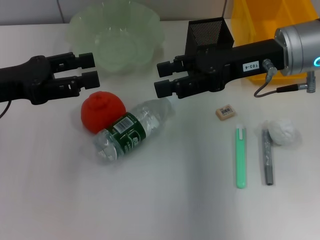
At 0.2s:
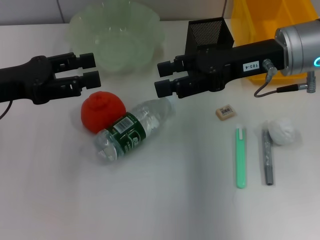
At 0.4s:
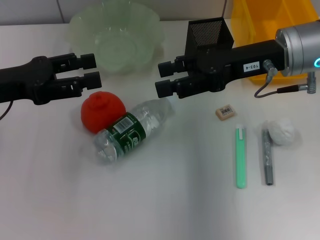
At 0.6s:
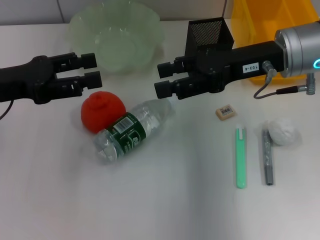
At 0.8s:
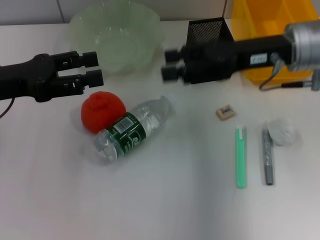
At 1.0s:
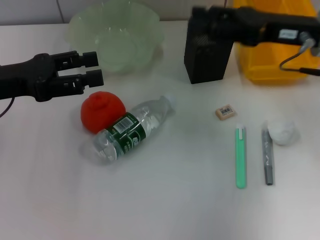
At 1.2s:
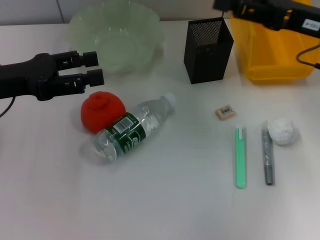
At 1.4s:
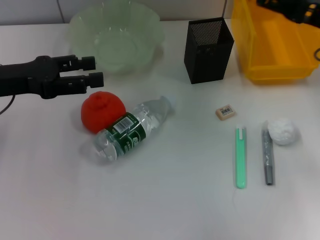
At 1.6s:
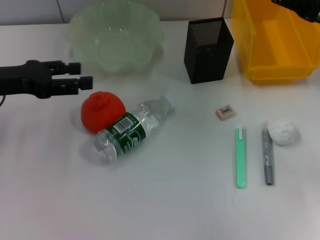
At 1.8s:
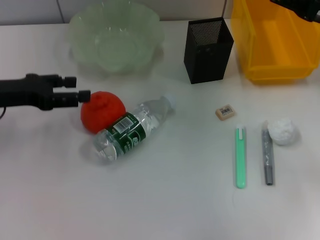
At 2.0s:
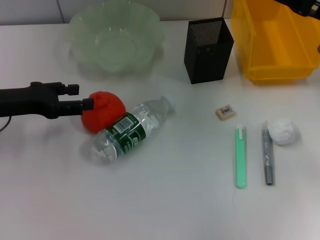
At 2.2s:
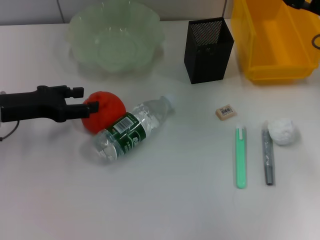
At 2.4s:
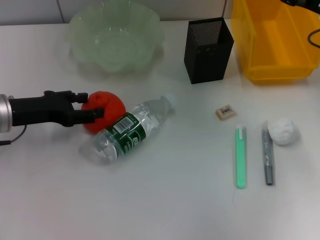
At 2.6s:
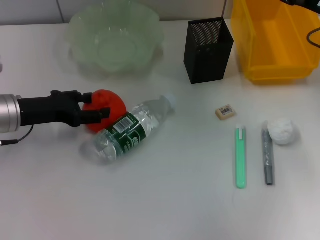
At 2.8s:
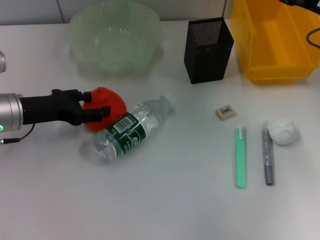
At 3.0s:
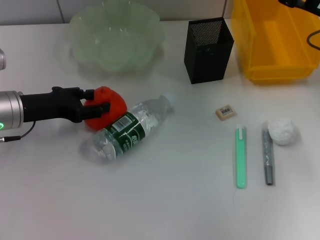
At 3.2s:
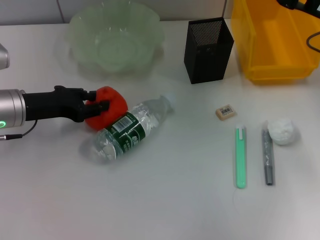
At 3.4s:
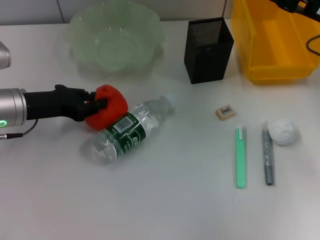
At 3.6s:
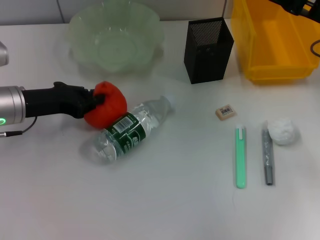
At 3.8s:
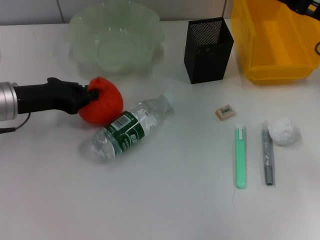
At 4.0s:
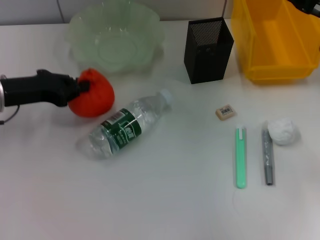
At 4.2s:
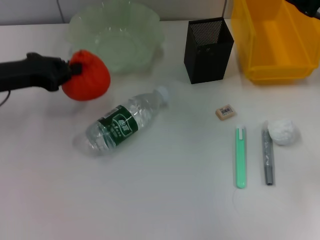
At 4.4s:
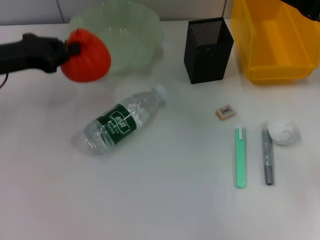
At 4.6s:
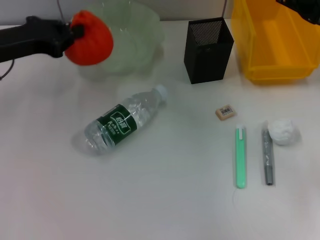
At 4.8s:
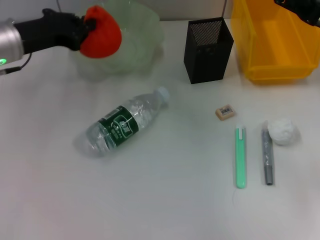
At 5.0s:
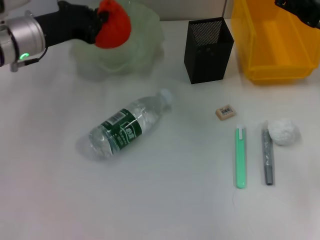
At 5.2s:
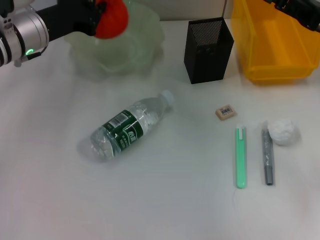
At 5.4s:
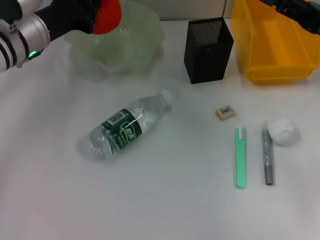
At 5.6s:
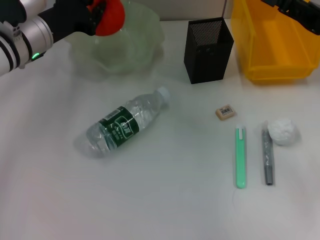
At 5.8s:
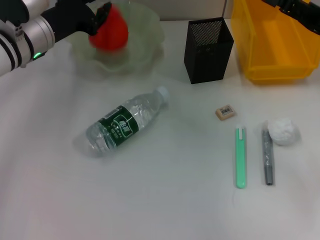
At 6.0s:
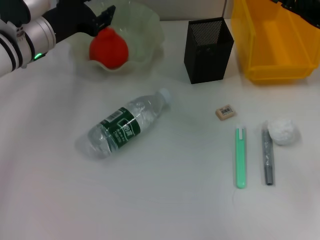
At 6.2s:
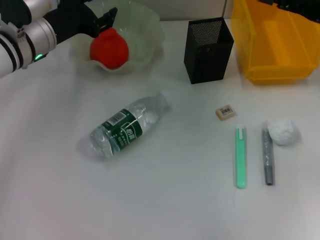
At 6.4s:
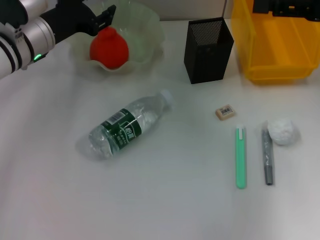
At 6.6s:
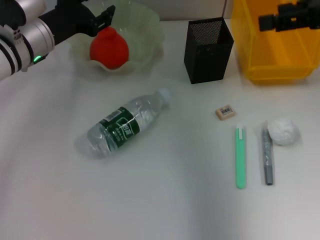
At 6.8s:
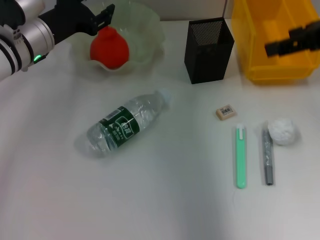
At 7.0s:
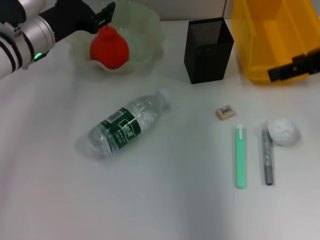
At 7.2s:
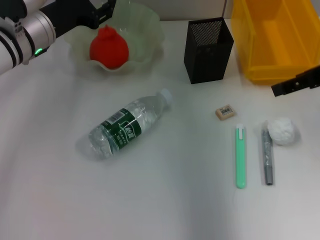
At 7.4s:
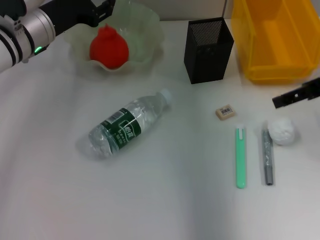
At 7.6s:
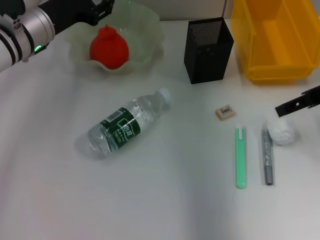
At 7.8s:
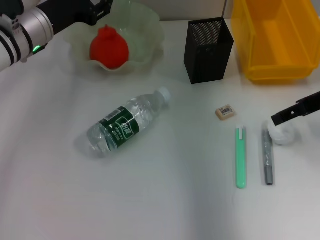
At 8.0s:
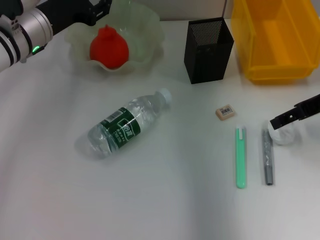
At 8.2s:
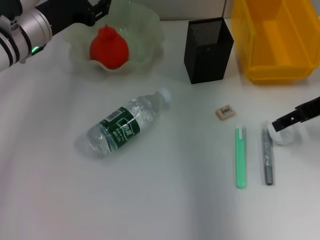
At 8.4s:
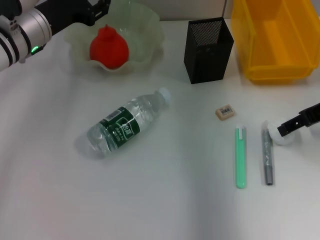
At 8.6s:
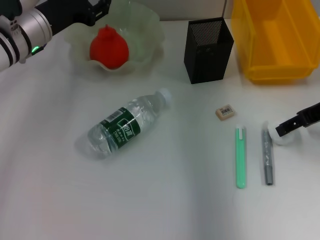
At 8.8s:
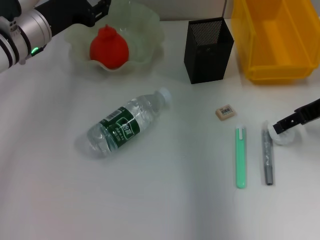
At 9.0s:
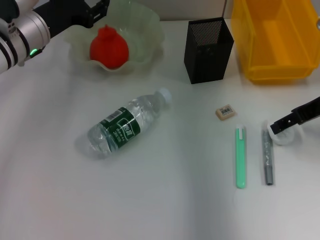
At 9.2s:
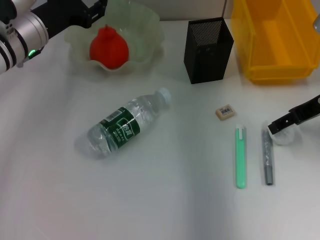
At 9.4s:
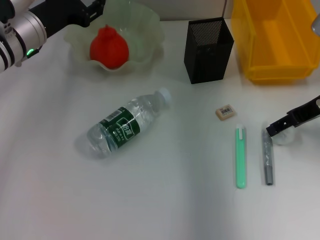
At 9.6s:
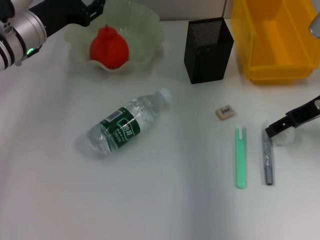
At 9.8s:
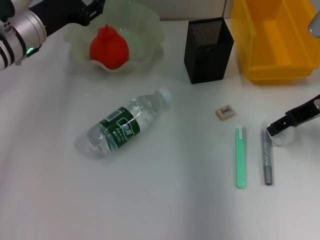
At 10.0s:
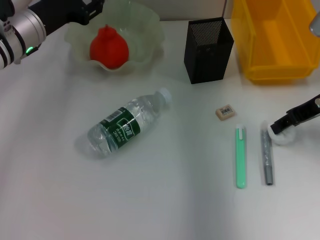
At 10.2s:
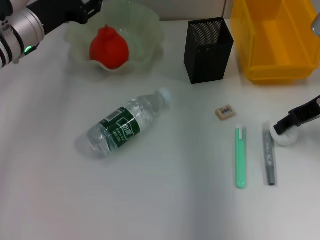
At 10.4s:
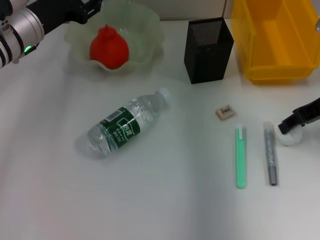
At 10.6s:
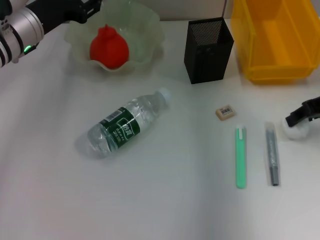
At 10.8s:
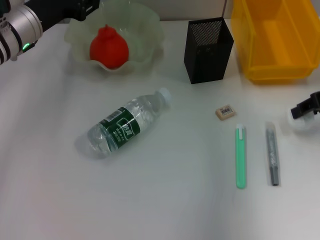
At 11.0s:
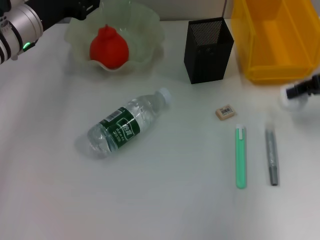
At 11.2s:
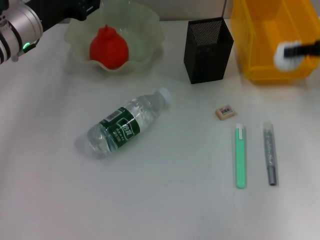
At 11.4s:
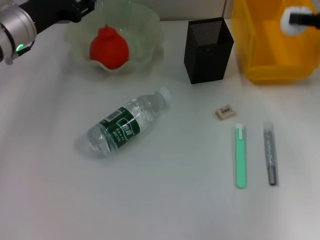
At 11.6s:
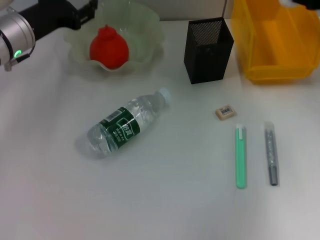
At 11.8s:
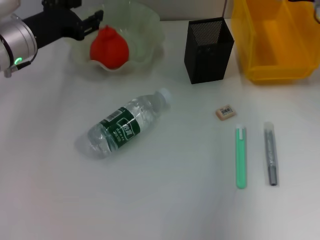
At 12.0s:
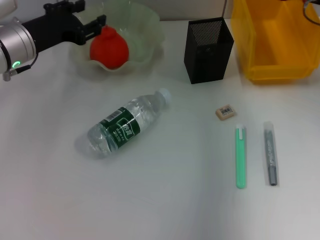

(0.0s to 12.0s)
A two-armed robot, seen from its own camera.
Step, 0.0s - 3.4s: Grab the orange with the left hand.
Step, 3.8s - 5.8s: Place the orange into the fruit bowl with the left hand.
Step, 6.0s - 10.4s: Grab the paper ball with the right hand.
0.0s - 1.6s: The right gripper travels to the right by some 10 cm.
1.6s - 3.0s: The left gripper is displaced downward by some 5 cm.
3.0s - 4.4s: The left gripper shifts some 5 cm upward, and closes.
4.4s - 6.0s: The left gripper is displaced to the right and forward by approximately 10 cm, and opens its fingers.
6.0s - 7.6s: The right gripper travels upward and back again, some 10 cm each way; the left gripper opens its fingers.
7.6s - 9.0s: The grippers stay close to where they were, moving slightly.
9.0s - 10.4s: The right gripper closes its fingers.
10.4s - 12.0s: The right gripper shifts approximately 10 cm forward.

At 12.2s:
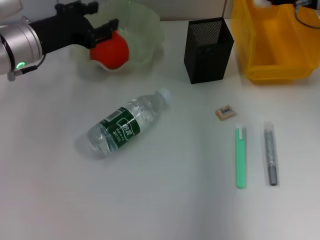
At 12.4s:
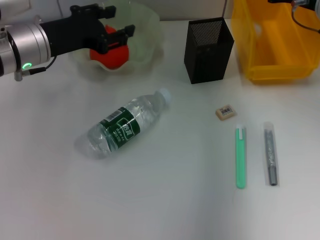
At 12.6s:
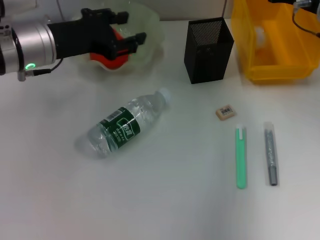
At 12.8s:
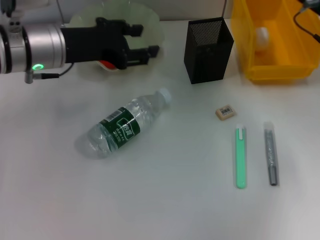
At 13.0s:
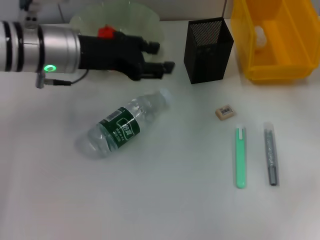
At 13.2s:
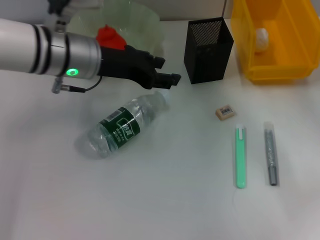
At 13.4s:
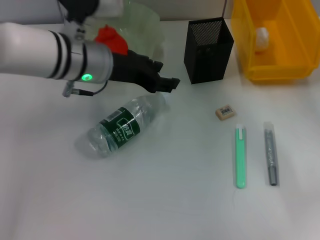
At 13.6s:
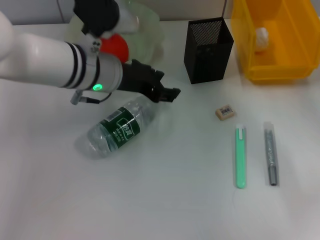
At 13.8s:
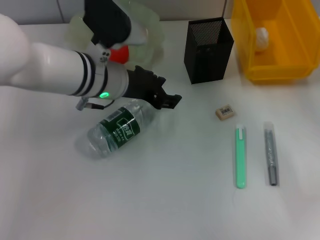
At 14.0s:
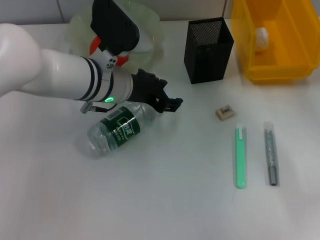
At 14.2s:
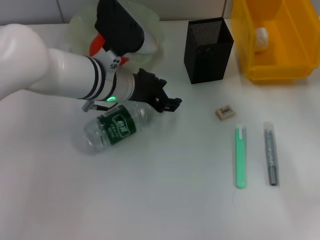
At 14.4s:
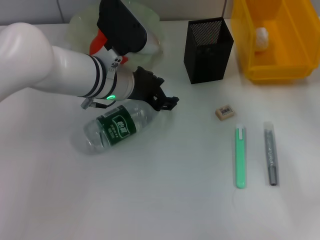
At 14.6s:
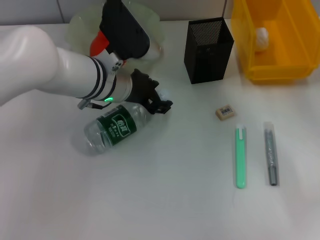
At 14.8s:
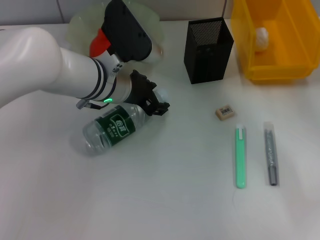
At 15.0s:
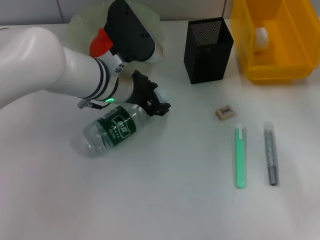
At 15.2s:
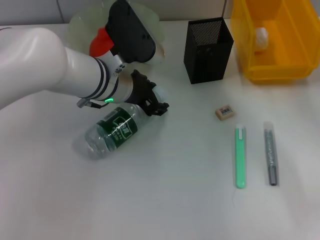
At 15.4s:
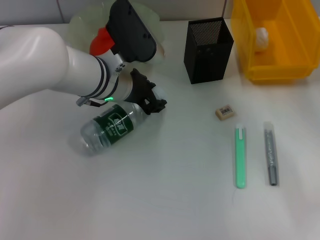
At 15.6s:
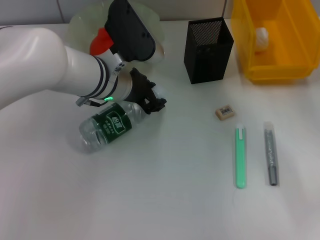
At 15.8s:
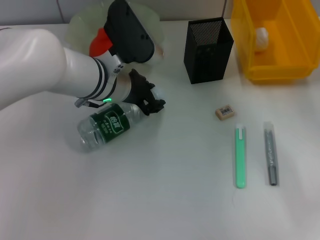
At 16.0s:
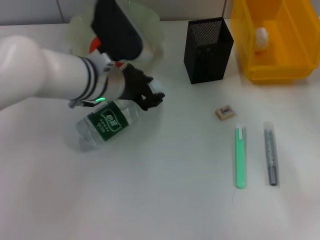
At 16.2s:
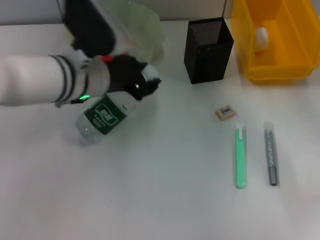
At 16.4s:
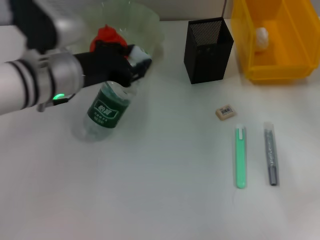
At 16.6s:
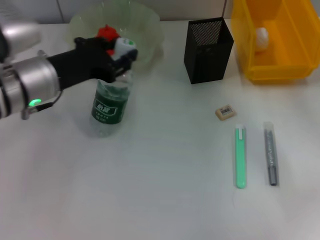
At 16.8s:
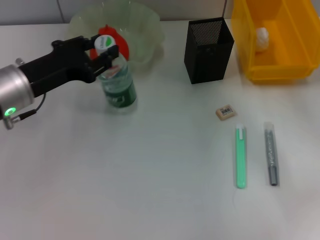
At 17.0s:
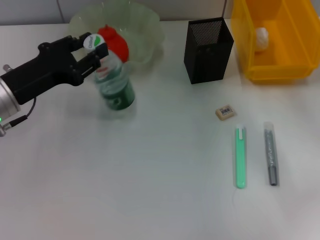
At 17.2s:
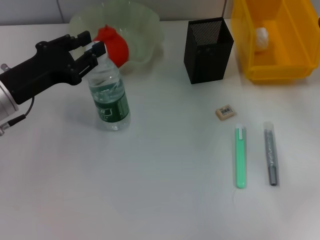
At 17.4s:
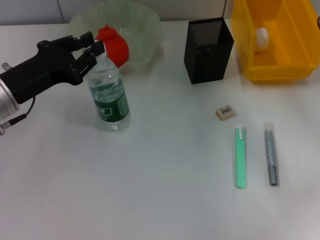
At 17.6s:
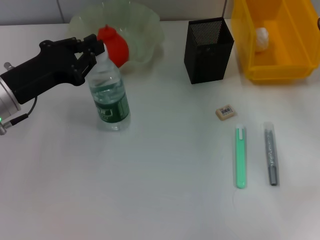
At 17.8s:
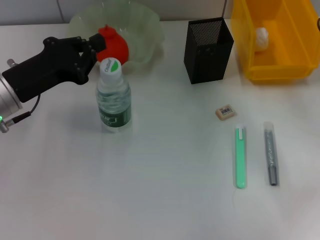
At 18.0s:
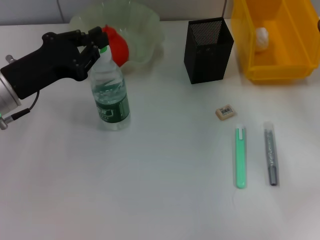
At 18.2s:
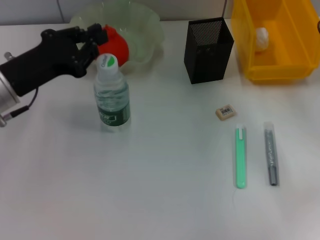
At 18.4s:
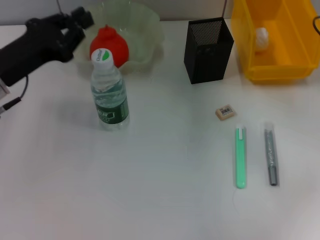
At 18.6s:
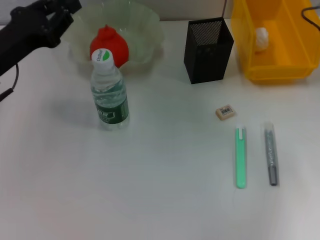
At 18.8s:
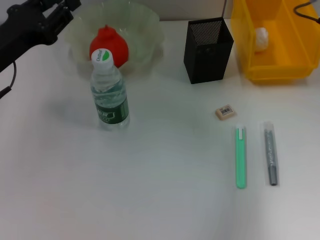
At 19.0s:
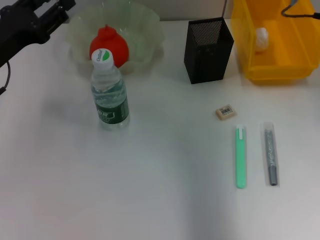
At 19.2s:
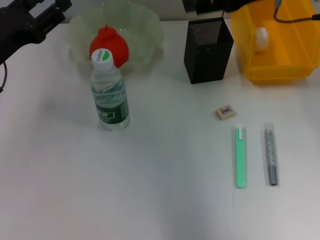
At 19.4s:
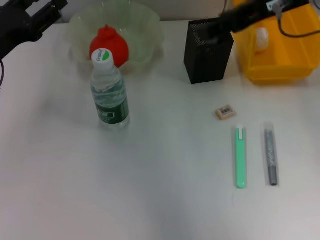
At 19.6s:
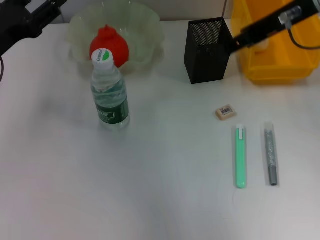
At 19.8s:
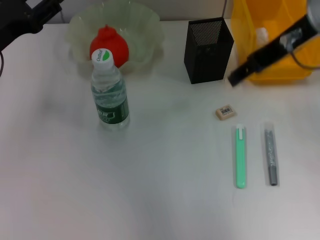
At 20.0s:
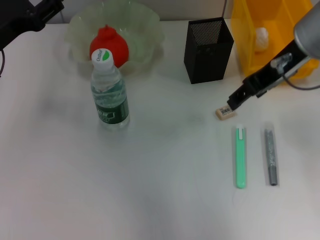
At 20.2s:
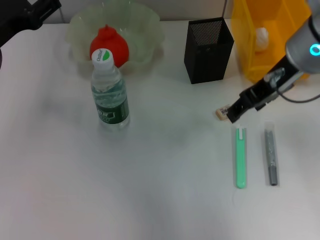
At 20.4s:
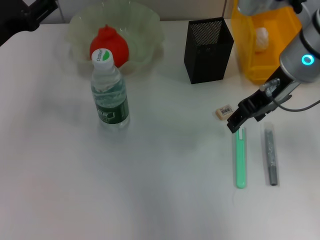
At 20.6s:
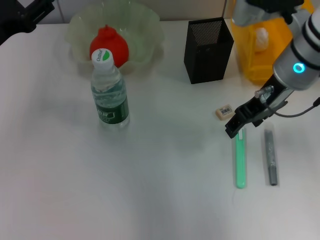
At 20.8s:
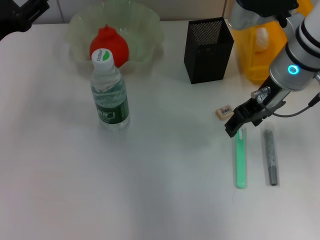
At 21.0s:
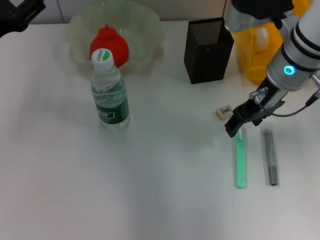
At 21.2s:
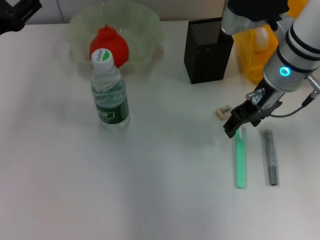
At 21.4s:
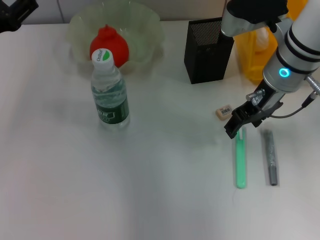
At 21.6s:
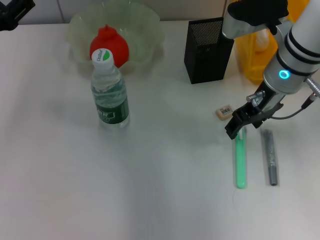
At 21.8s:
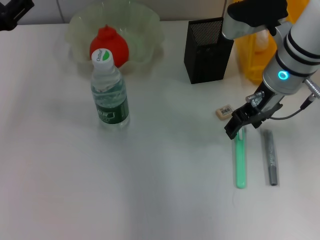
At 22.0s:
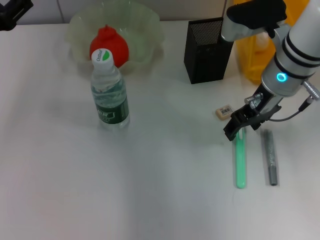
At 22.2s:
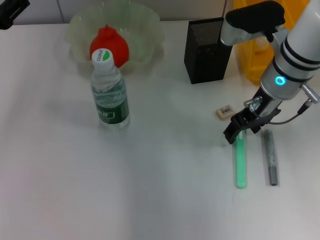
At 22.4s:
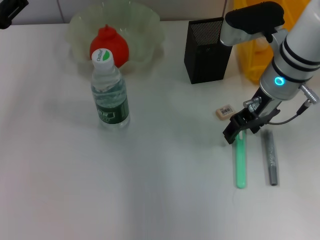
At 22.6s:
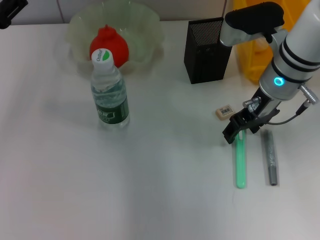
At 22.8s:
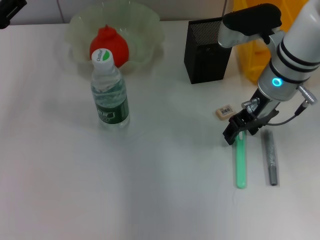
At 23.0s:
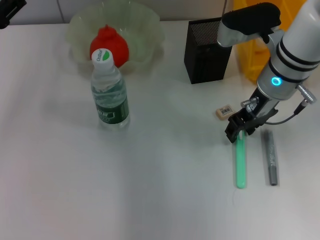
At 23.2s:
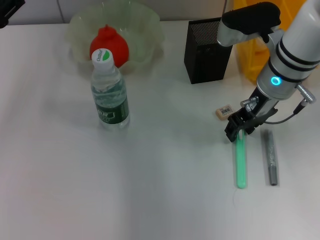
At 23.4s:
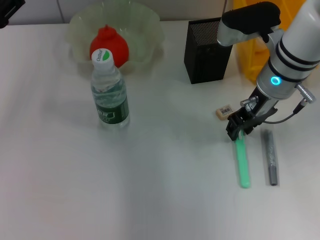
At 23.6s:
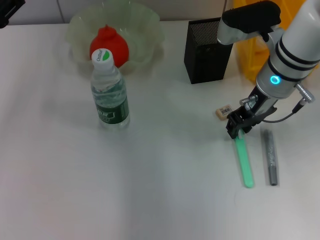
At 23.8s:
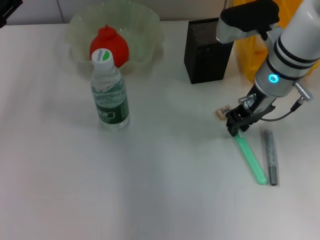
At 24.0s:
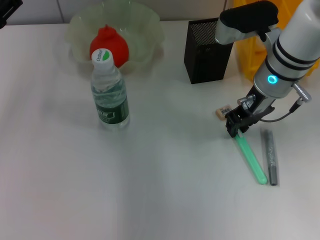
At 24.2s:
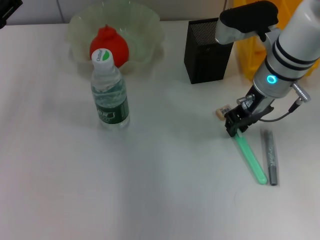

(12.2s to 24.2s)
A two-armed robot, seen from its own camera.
Step, 12.6s - 15.6s: Grab the water bottle with the left hand.
Step, 16.0s - 18.2s: Place the water bottle on the table with the left hand.
12.2s - 13.8s: The right gripper heads backward, covering roughly 10 cm, and opens. The left gripper shifts some 10 cm to the right.
13.8s - 15.2s: There are only small adjustments of the grippers.
15.2s - 16.6s: The left gripper goes about 10 cm to the left and backward.
16.6s - 18.2s: The left gripper goes approximately 5 cm to the left, and closes its fingers.
18.2s - 19.8s: The right gripper shifts about 15 cm upward and to the left. Meanwhile the left gripper opens its fingers.
19.8s - 21.2s: The right gripper travels downward by approximately 10 cm.
21.2s - 22.6s: The grippers move only a little.
22.6s - 24.2s: The right gripper closes up.
